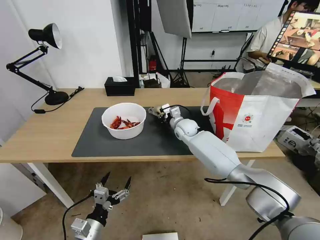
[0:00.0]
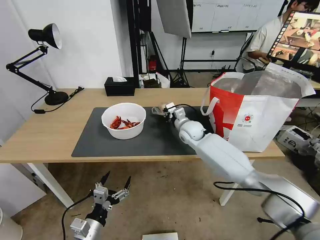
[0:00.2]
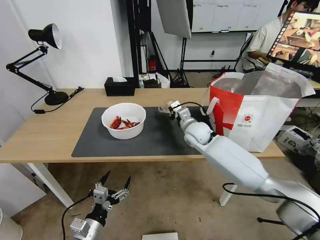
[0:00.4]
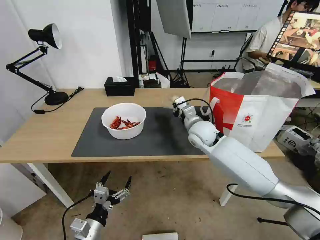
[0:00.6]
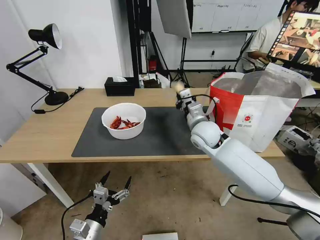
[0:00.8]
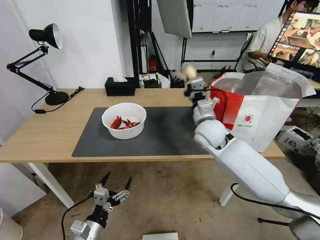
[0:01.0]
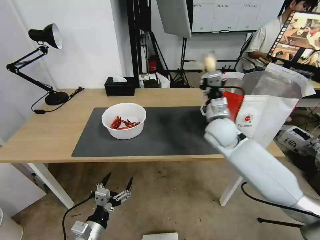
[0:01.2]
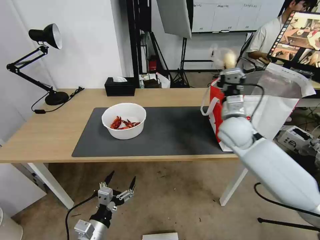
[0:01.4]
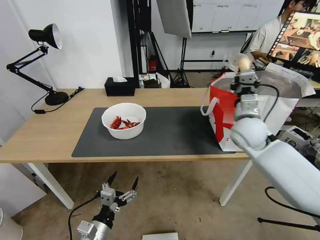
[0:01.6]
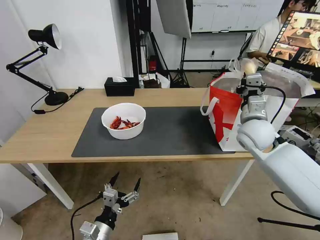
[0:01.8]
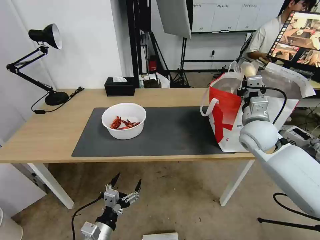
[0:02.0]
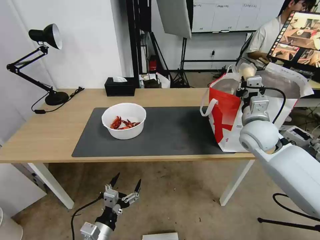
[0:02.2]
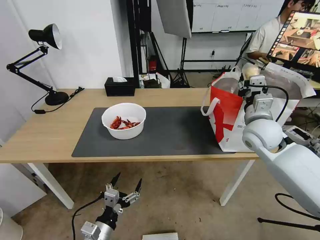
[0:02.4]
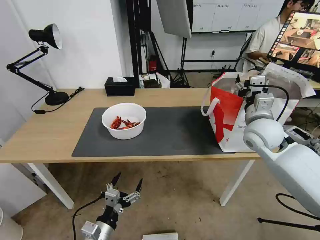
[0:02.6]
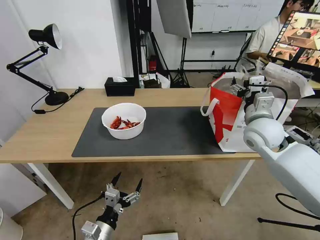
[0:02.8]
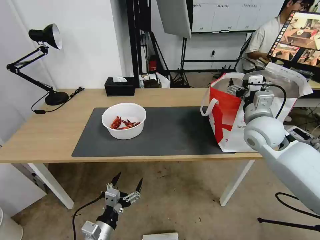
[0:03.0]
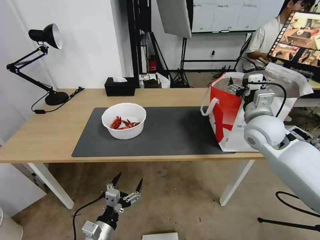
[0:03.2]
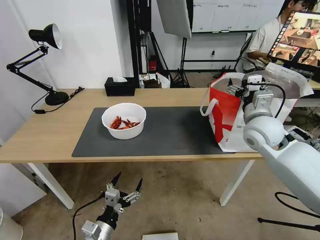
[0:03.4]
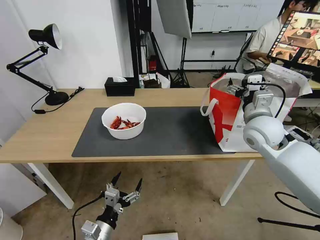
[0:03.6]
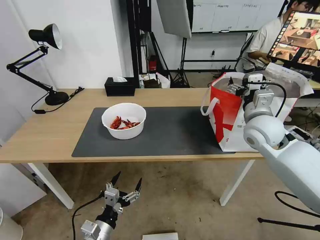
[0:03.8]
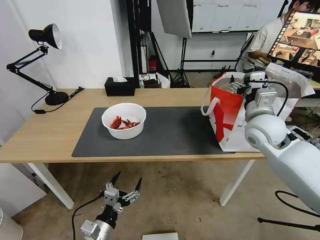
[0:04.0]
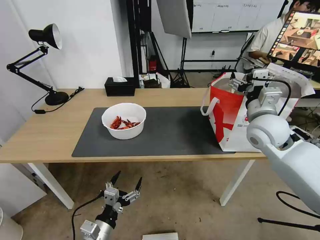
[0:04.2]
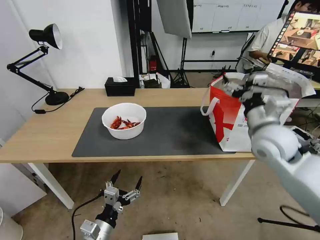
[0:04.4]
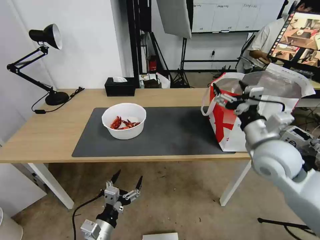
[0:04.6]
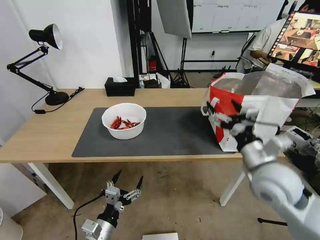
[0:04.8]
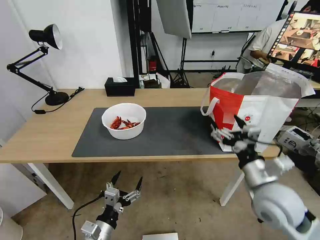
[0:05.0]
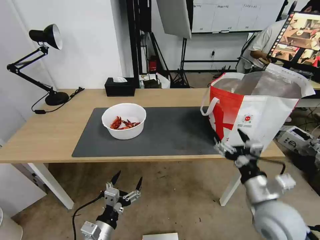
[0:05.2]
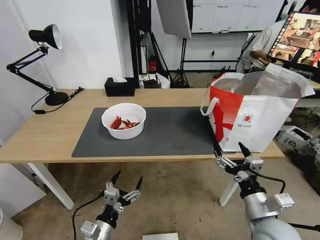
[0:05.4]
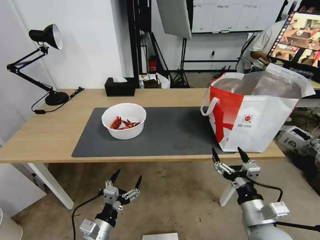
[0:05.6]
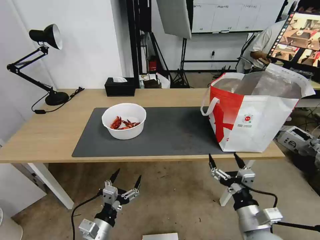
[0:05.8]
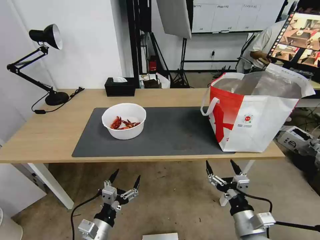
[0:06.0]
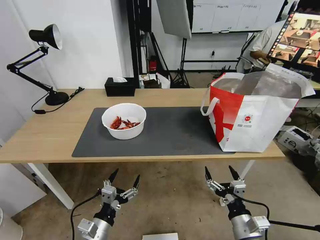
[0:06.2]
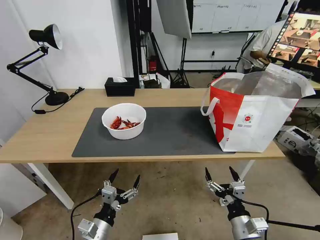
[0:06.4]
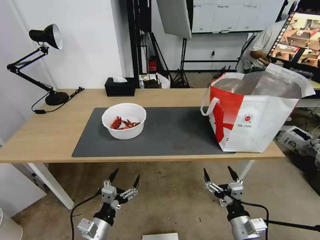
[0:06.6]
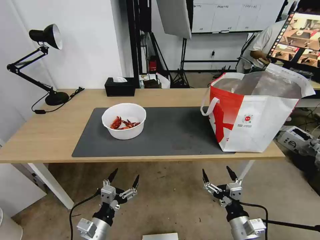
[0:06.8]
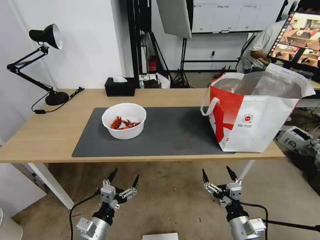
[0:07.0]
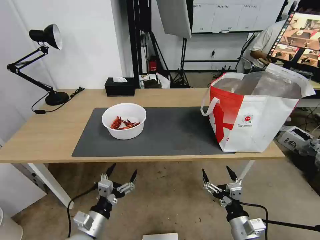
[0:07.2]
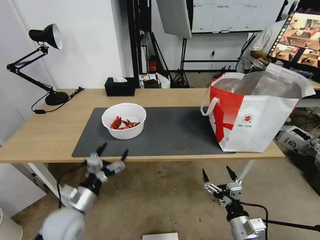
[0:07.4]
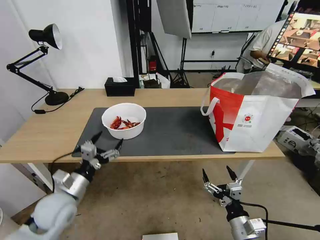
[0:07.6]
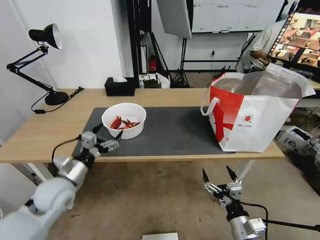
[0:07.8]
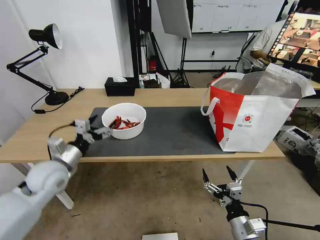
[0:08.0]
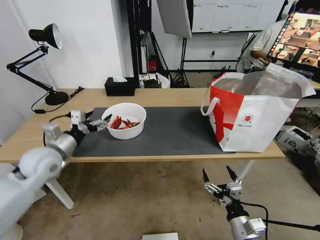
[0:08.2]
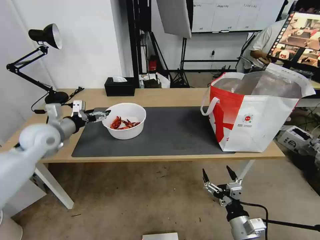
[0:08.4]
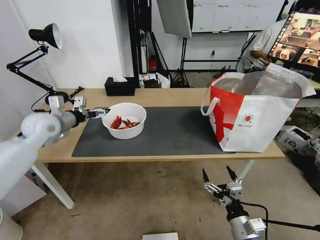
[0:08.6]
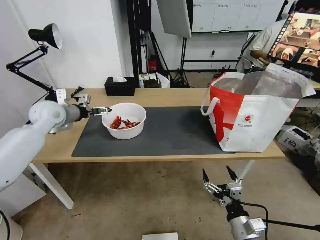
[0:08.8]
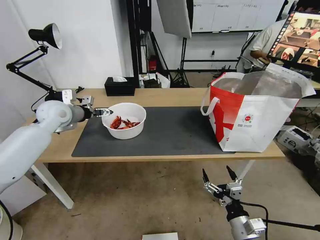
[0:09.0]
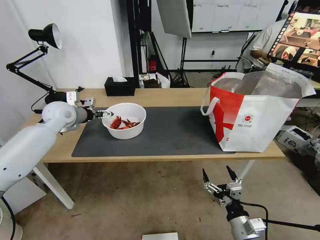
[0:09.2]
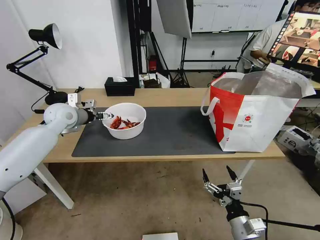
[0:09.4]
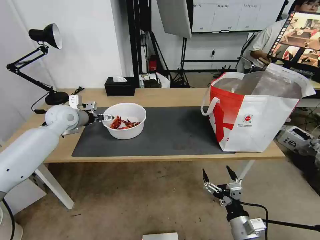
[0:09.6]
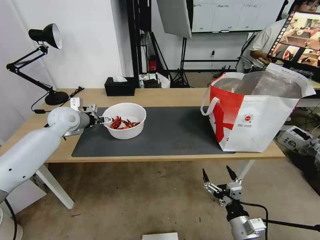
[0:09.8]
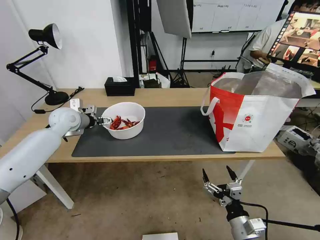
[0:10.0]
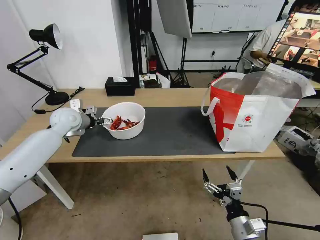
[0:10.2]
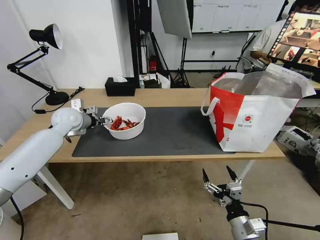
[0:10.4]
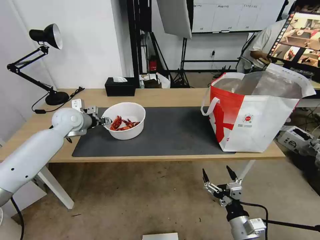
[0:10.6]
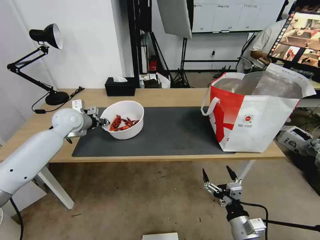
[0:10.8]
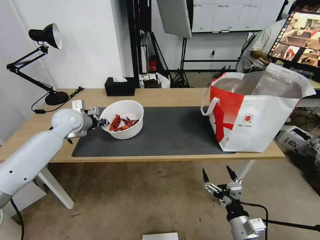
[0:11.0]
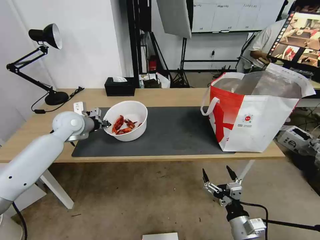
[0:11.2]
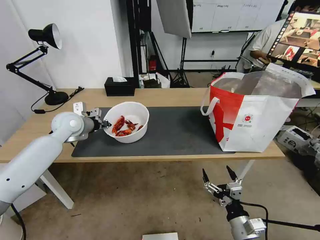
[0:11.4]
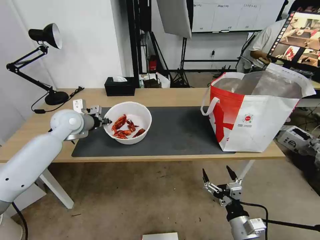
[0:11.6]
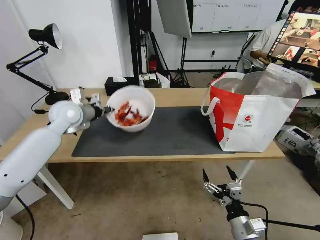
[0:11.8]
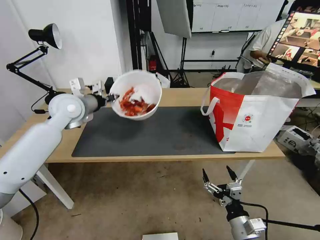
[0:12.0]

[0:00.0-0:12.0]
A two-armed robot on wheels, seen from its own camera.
Task of the whole recording: Pick up the trash from the table and place it into the takeout bag.
0:00.0 to 0:01.6: The right gripper heads to the right, backward and upward, covering roughly 25 cm.
0:01.6 to 0:03.0: The right gripper opens.
0:03.0 to 0:04.4: The right gripper moves approximately 5 cm.
0:04.4 to 0:06.0: The right gripper travels backward and downward by about 30 cm.
0:06.0 to 0:07.6: The left gripper goes approximately 15 cm forward, upward and to the left.
0:07.6 to 0:09.0: The left gripper shifts about 30 cm forward and upward.
0:09.0 to 0:10.4: There are only small adjustments of the grippers.
0:10.4 to 0:12.0: The left gripper moves upward and to the right, approximately 10 cm, and closes up.

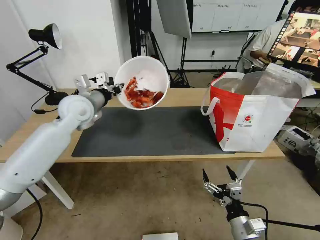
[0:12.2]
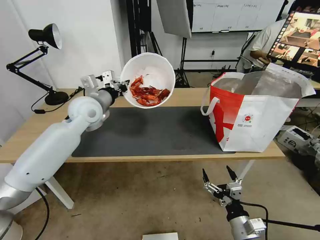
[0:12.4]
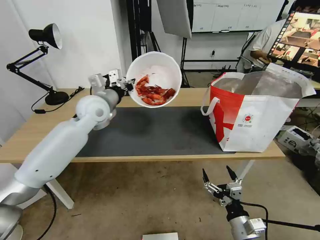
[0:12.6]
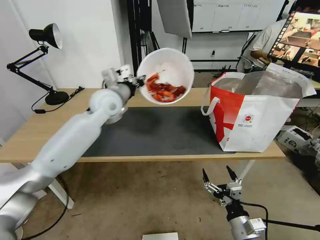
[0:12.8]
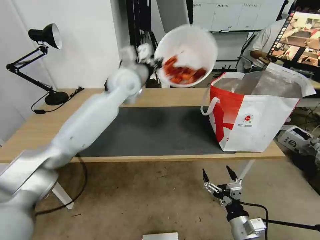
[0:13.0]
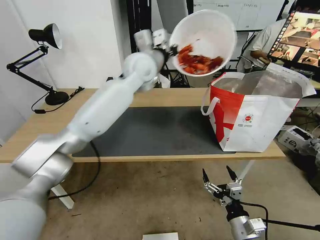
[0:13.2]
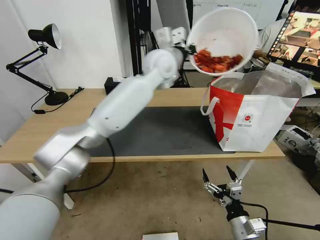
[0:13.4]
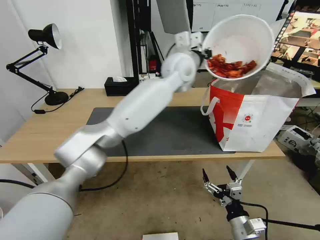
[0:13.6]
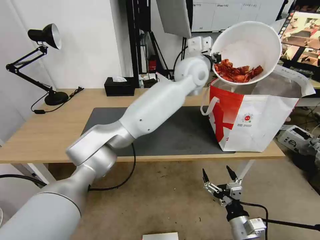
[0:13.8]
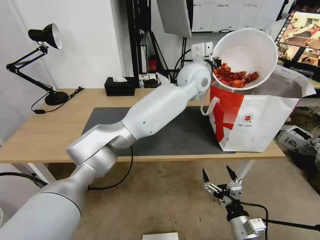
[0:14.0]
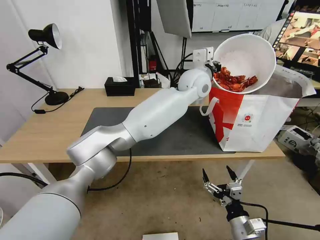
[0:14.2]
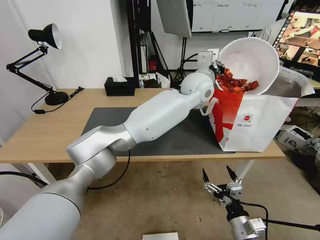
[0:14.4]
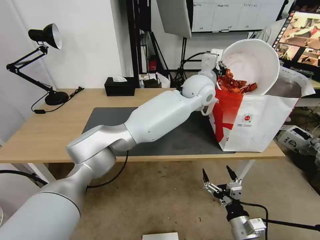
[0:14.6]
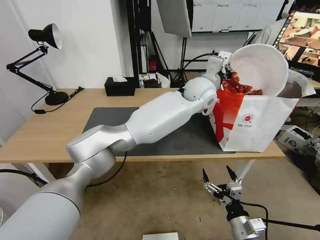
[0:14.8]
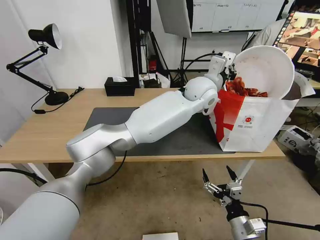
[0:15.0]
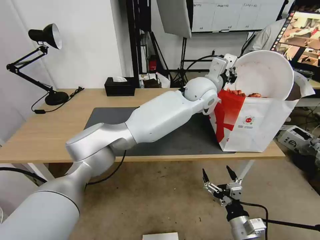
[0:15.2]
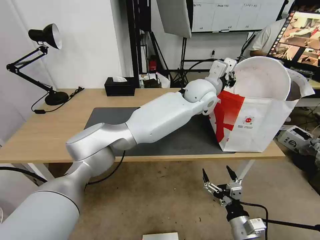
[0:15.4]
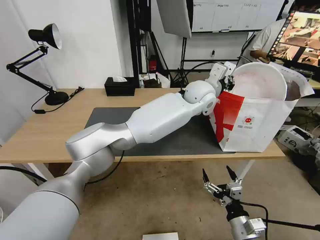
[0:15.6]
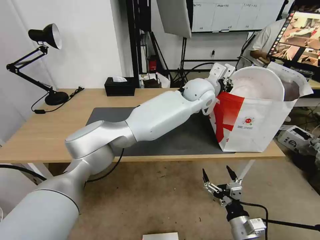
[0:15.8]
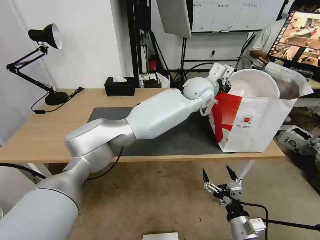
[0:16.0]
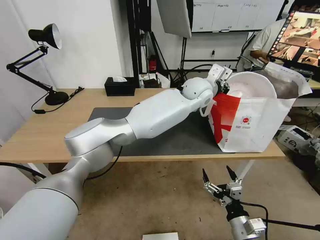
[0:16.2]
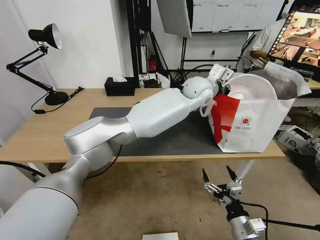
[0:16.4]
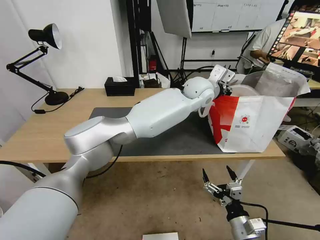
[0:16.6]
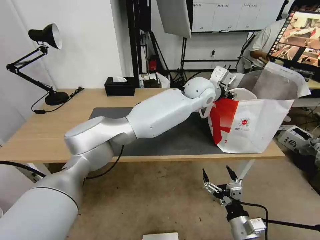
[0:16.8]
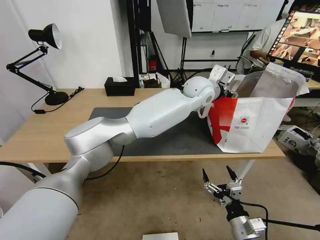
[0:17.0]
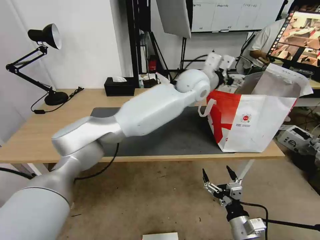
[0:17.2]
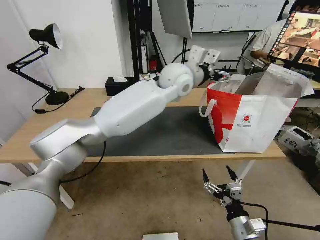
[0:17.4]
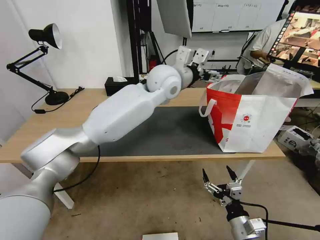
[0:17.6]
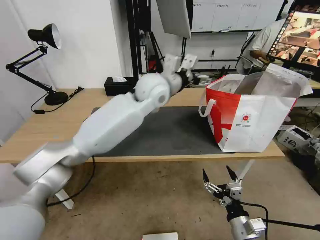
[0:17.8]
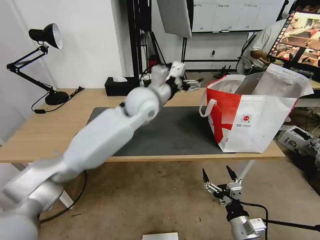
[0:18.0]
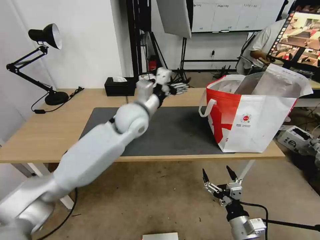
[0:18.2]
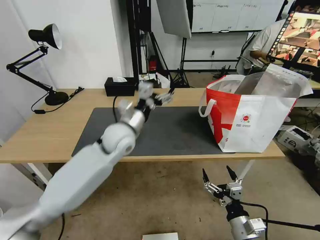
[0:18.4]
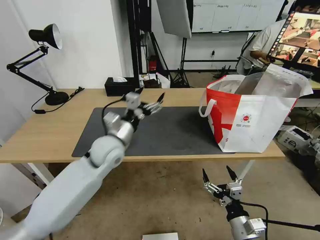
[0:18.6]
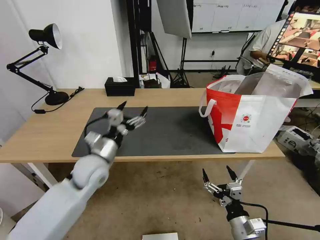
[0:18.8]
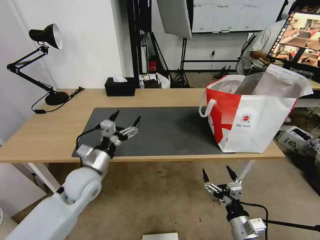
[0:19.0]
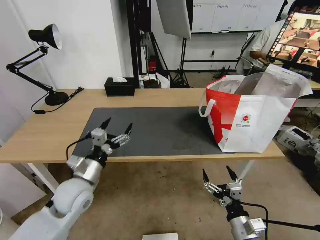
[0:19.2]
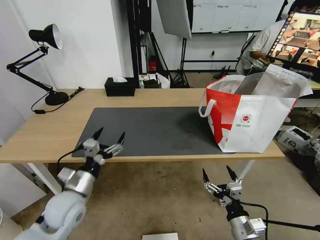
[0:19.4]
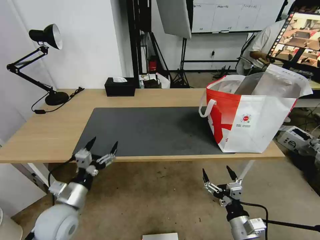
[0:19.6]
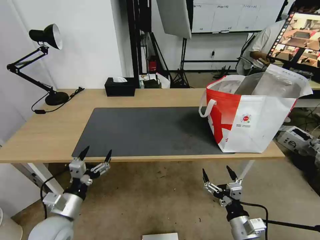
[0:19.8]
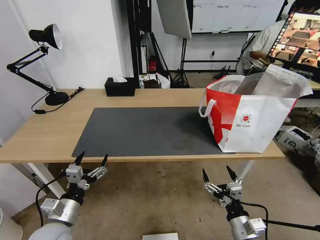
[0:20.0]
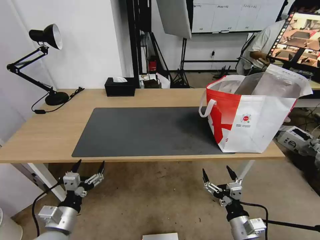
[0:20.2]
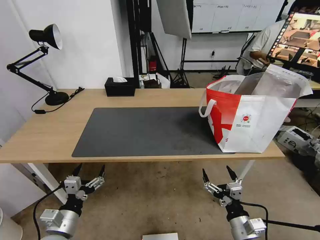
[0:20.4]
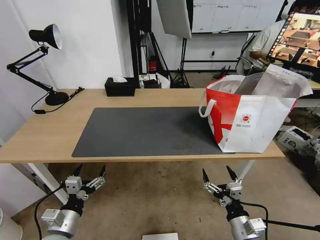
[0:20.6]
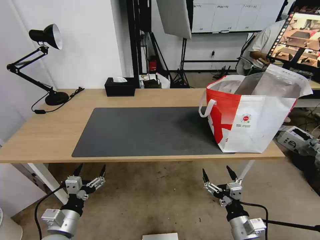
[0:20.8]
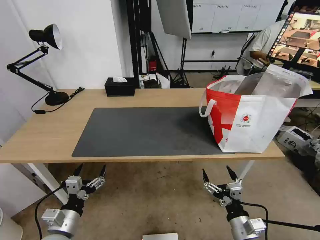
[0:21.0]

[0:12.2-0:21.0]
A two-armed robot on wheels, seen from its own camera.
Task of the whole recording: Pick up the trash from the table and place it into the takeout bag.
0:12.2 to 0:13.6: The left gripper heads to the right, covering approximately 30 cm.
0:13.6 to 0:15.2: The left gripper shifts some 10 cm to the right and downward.
0:15.2 to 0:16.6: The grippers move only a little.
0:16.6 to 0:18.0: The left gripper travels to the left by about 20 cm, and opens its fingers.
0:18.0 to 0:19.6: The left gripper heads backward, to the left and downward, covering approximately 40 cm.
0:19.6 to 0:21.0: The left gripper travels backward by approximately 5 cm.
